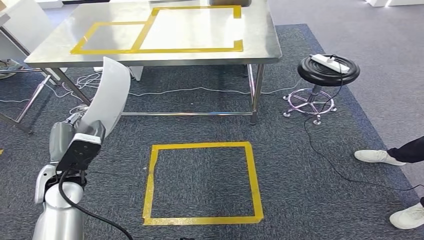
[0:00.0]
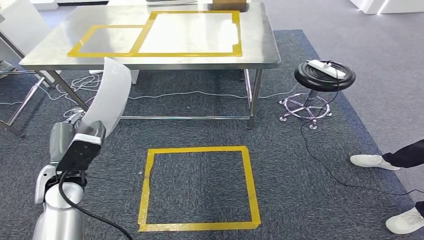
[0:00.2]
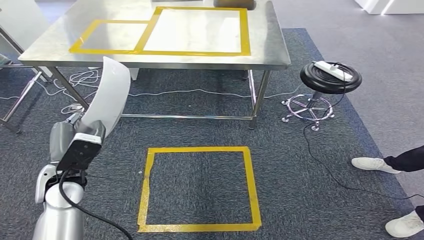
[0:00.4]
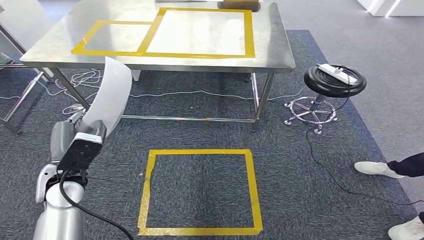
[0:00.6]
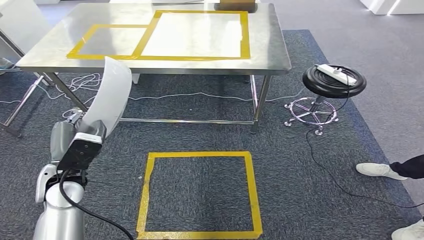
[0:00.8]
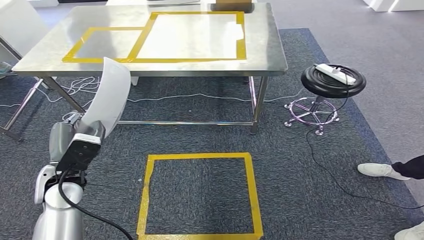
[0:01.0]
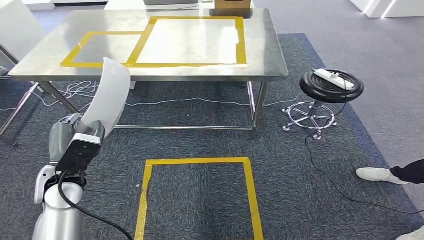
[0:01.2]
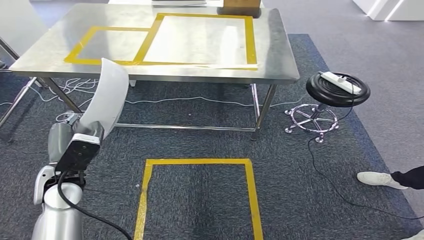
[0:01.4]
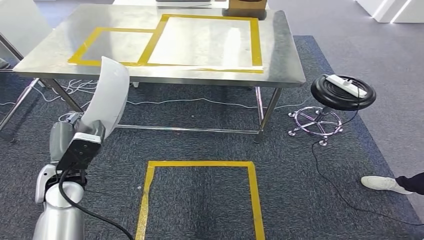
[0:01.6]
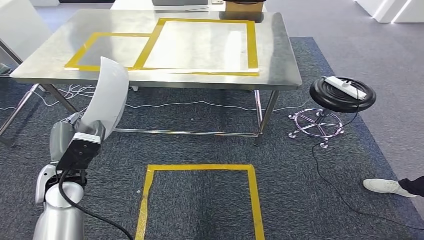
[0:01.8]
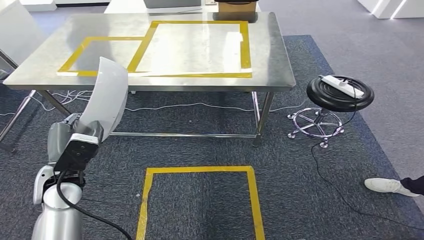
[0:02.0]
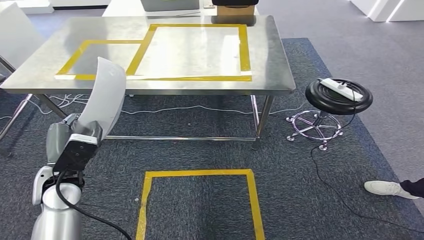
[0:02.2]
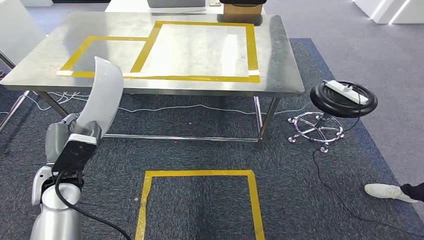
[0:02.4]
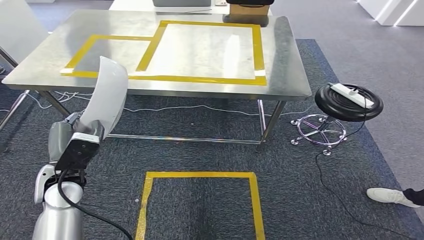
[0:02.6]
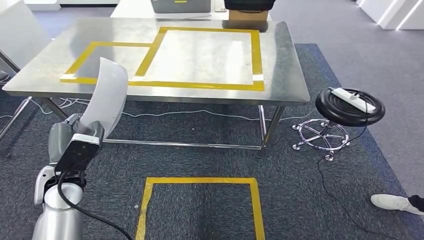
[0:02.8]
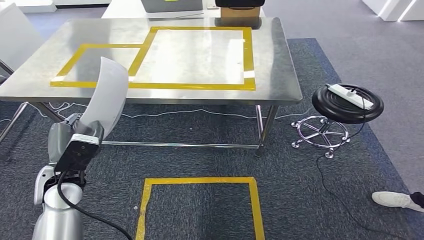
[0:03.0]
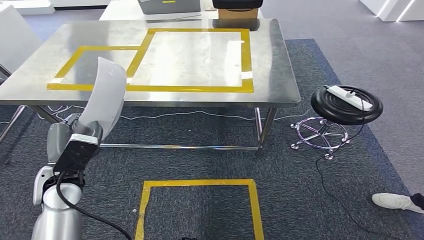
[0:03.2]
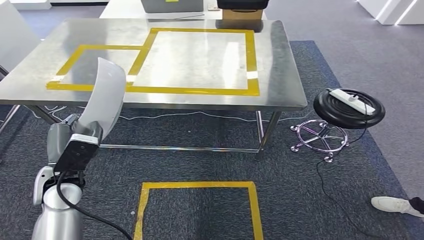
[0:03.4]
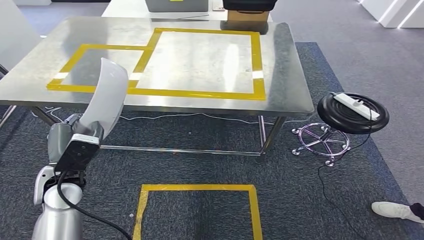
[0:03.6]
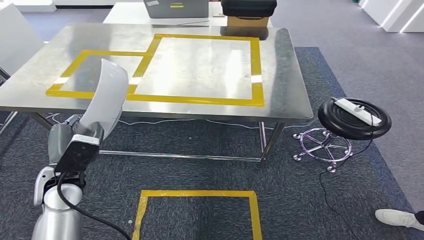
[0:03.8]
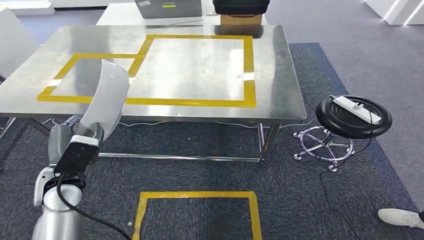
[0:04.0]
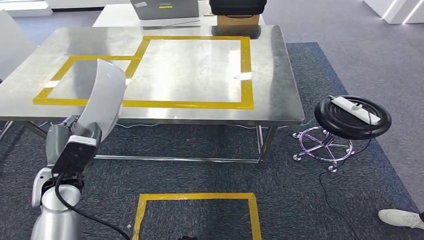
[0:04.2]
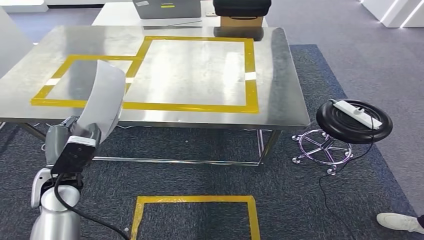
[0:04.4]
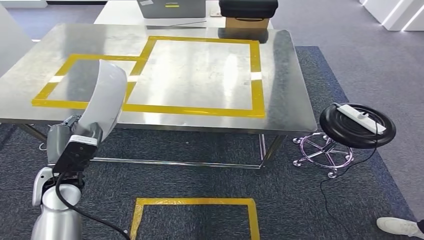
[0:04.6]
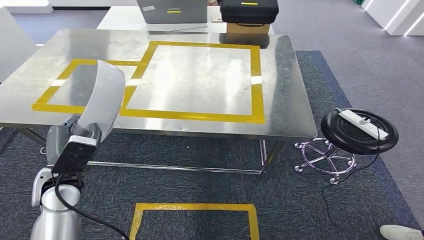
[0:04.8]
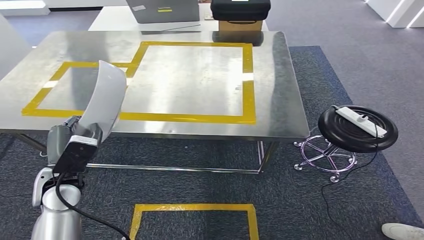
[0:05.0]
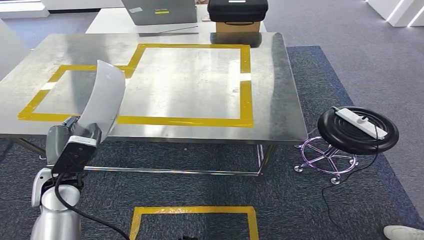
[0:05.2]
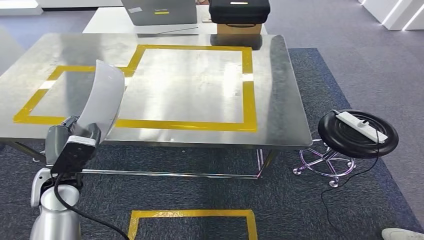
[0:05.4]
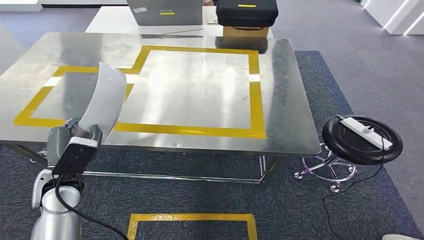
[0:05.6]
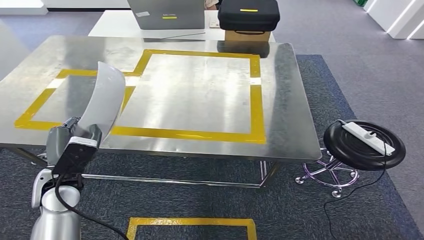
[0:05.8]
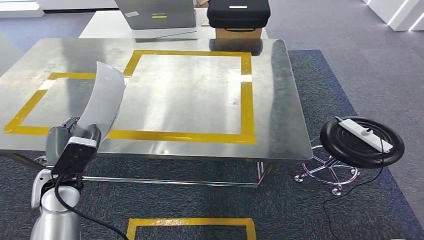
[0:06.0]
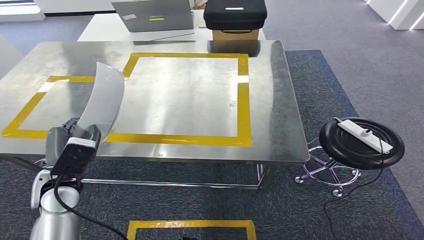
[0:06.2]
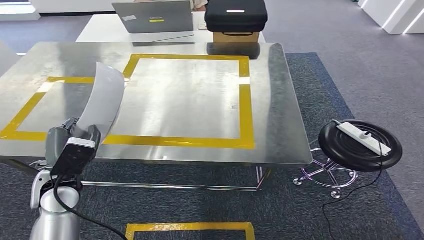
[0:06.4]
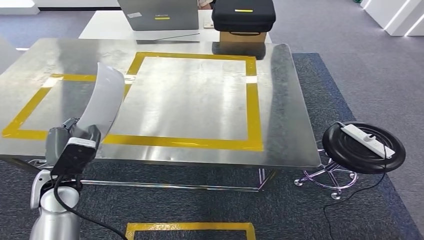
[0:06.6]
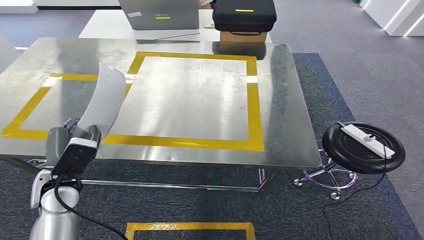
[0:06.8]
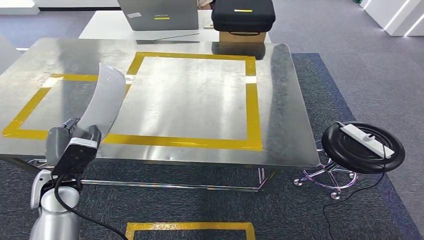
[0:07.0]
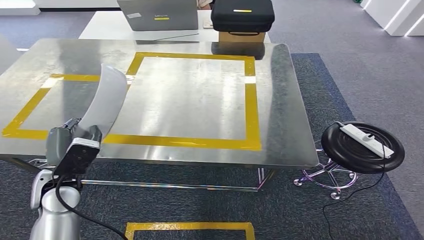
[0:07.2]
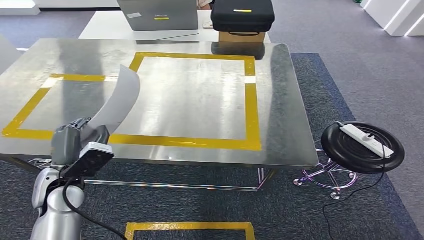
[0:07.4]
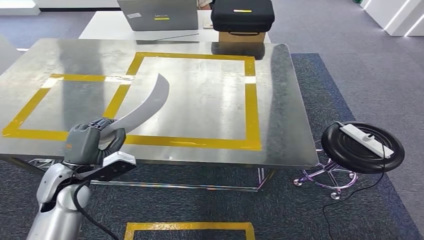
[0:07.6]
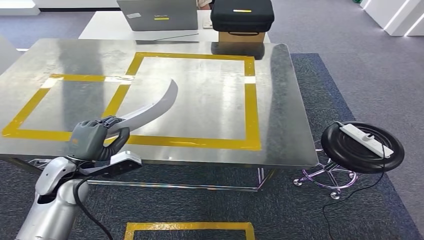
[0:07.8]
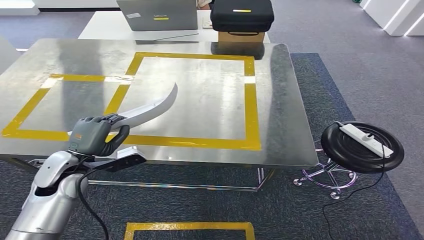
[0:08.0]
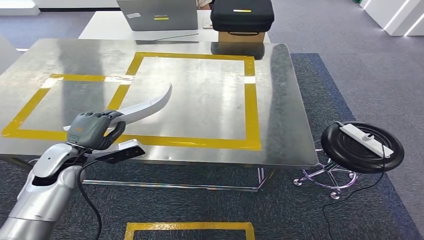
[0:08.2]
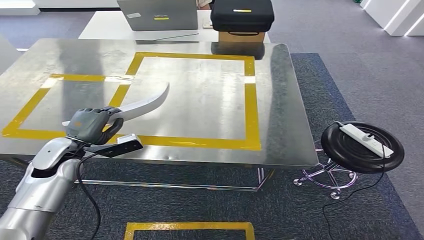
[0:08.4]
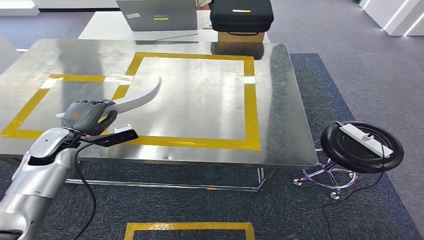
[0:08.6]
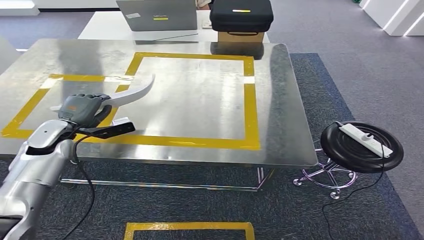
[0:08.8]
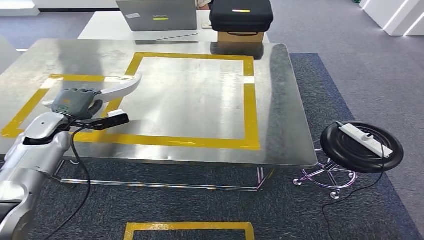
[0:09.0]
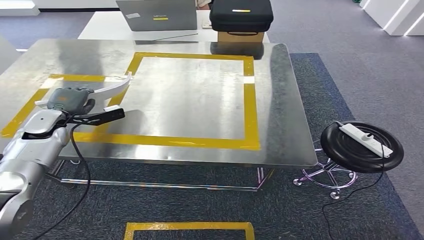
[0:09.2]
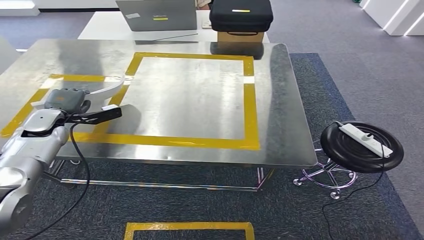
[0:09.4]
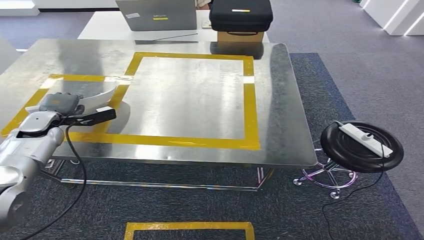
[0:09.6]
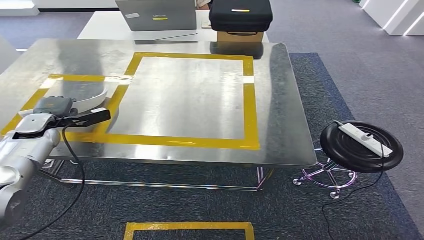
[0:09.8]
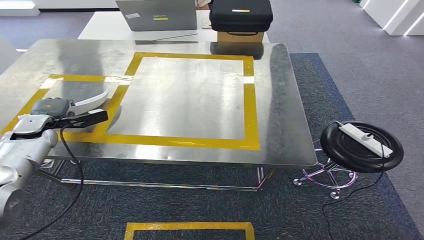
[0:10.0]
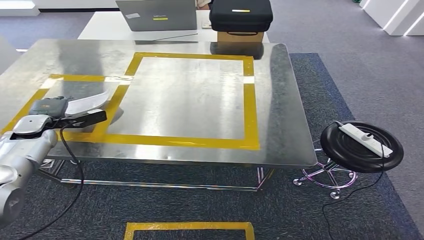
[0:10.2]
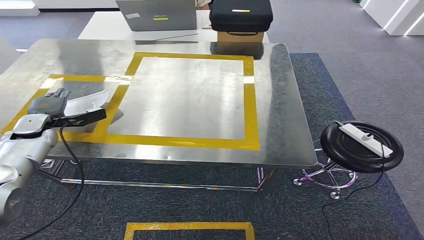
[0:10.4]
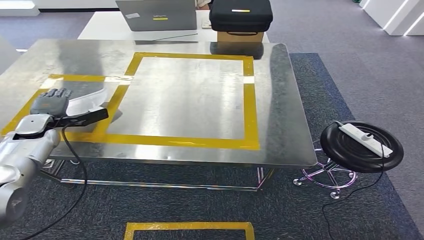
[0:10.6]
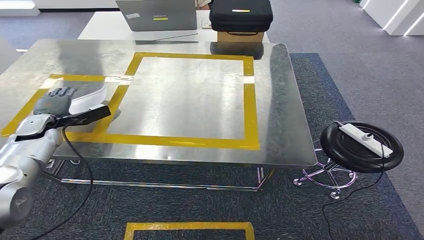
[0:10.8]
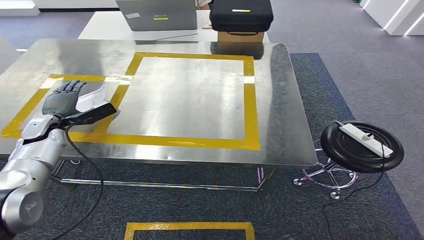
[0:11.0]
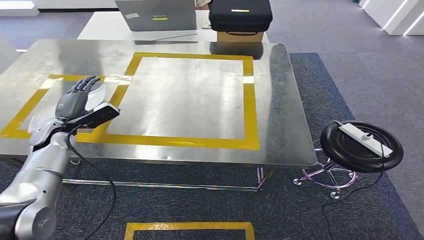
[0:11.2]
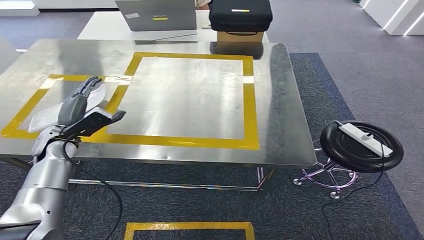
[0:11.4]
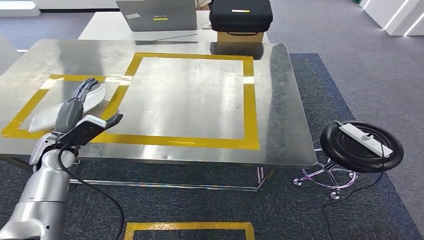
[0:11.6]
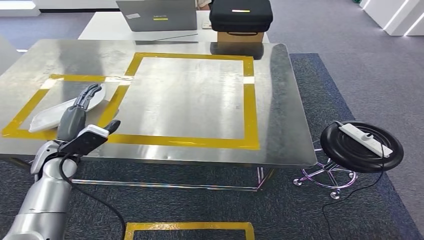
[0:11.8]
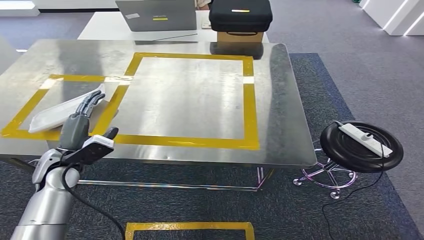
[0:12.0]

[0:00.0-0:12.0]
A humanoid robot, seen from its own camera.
Step, 0:00.0 to 0:03.0: Move the small component to the workbench.
0:07.6 to 0:09.0: The left hand shifts some 20 cm forward and to the left.
0:09.0 to 0:10.4: The left hand heads to the left, covering approximately 5 cm.
0:10.4 to 0:12.0: The left hand shifts roughly 15 cm to the right and backward.

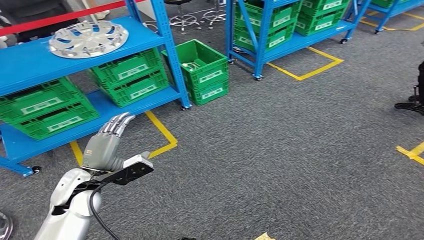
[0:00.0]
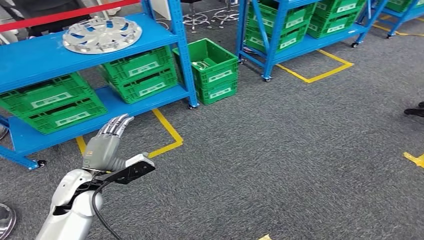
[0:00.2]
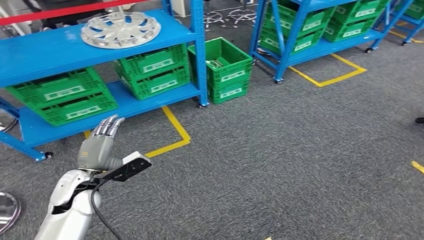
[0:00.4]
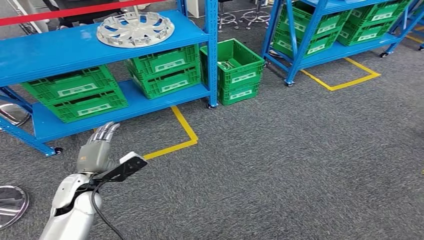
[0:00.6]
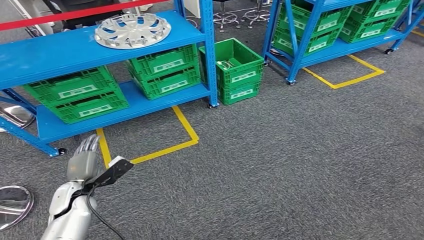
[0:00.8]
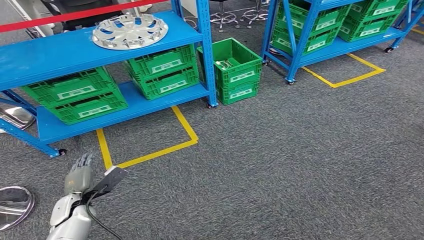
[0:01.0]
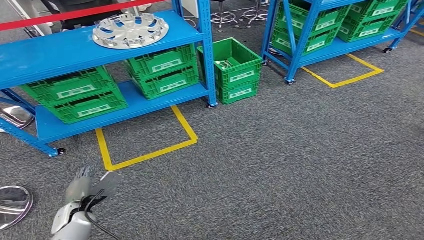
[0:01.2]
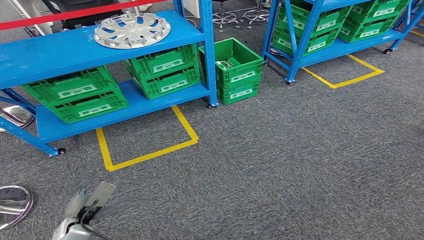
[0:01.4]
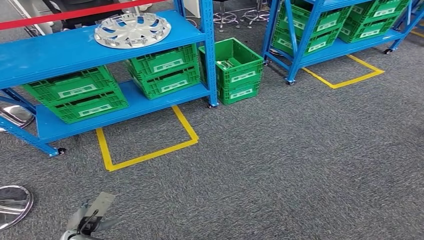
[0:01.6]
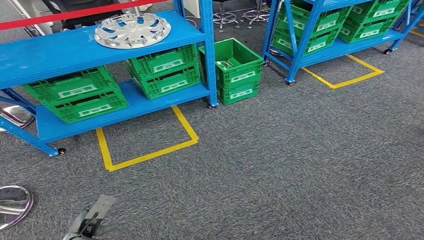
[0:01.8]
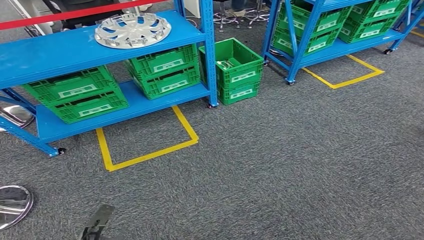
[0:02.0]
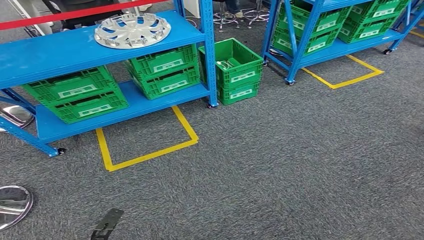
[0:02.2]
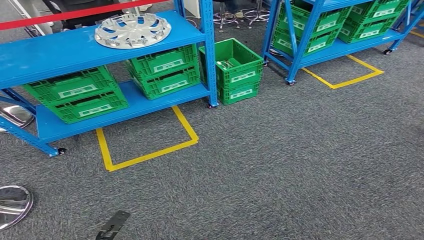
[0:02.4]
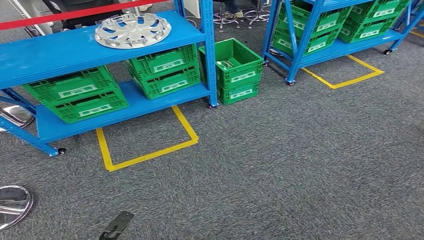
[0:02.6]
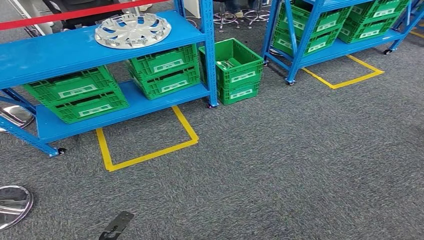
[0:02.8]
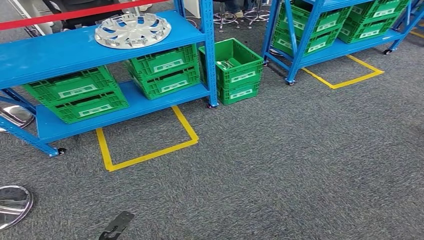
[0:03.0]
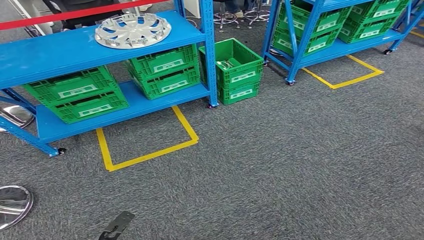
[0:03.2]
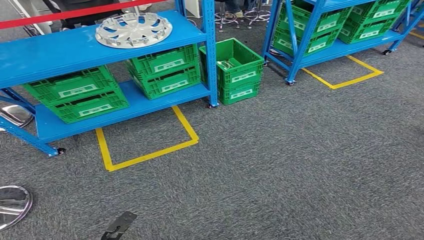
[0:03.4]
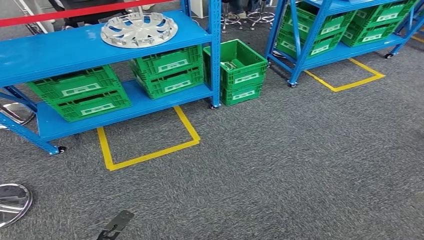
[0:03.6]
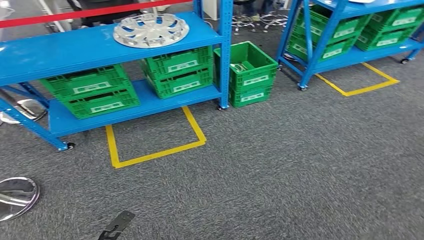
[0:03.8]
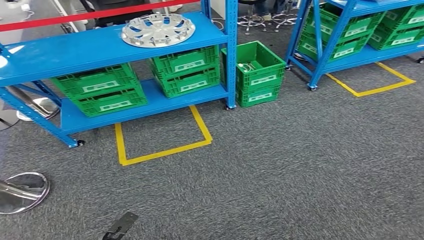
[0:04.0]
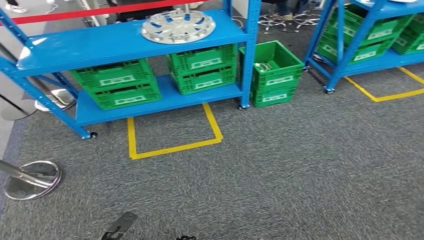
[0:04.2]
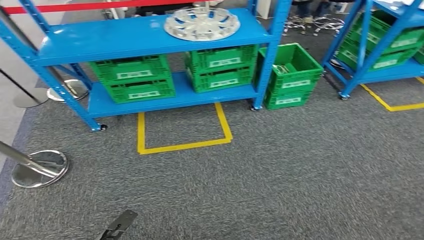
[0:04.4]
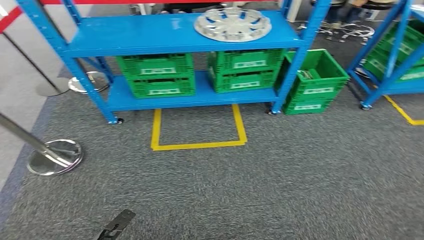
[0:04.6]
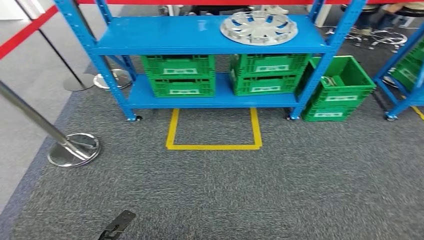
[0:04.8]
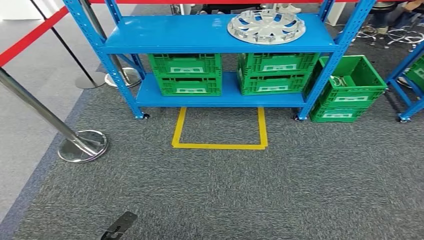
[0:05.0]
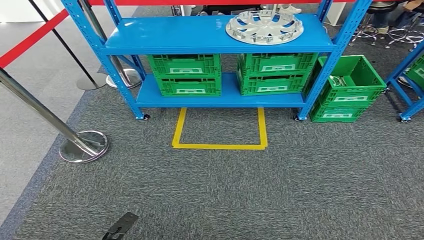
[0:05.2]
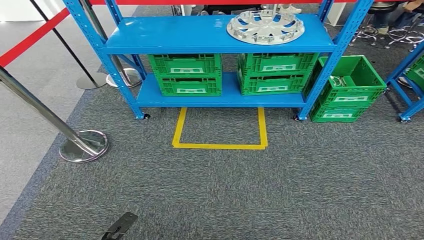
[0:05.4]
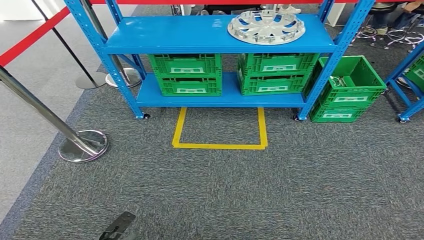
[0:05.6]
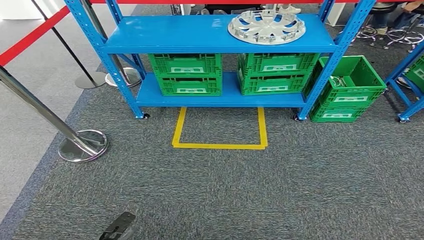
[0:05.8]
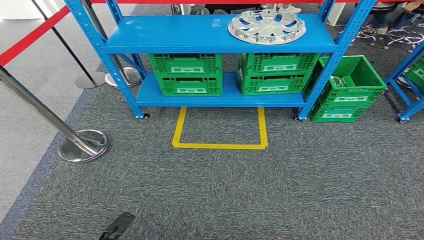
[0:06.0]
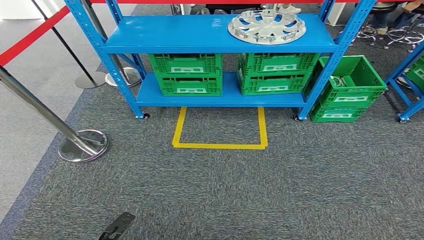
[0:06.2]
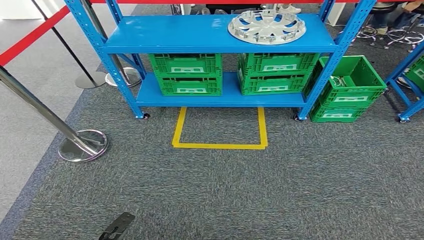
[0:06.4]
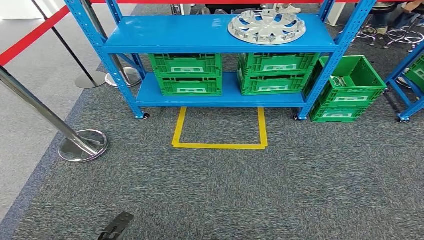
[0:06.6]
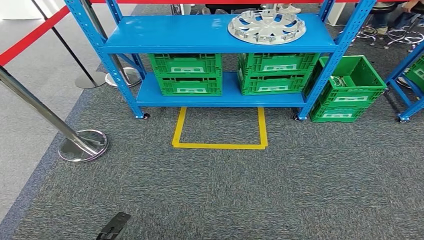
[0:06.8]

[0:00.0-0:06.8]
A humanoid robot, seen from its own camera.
Step, 0:00.0 to 0:06.8: Return to the initial position at the workbench.
0:01.4 to 0:02.8: The left hand travels to the right and backward by some 10 cm.
0:05.4 to 0:06.8: The hands make only small movements.
